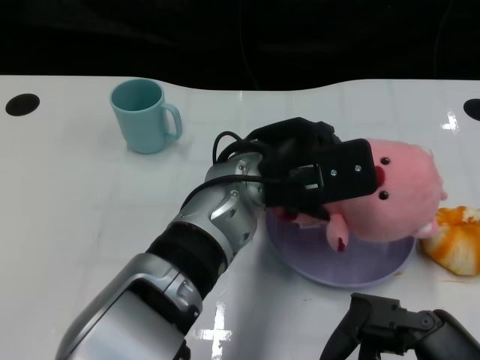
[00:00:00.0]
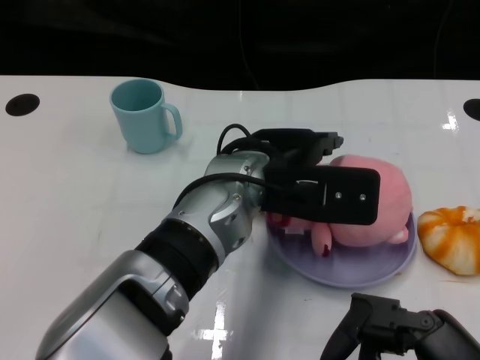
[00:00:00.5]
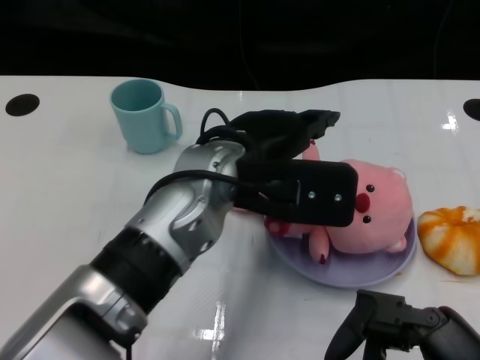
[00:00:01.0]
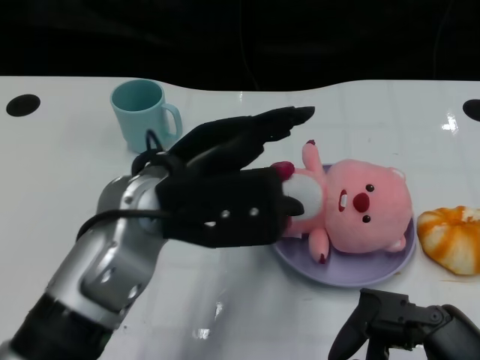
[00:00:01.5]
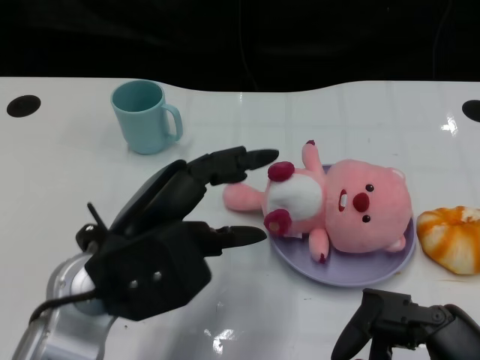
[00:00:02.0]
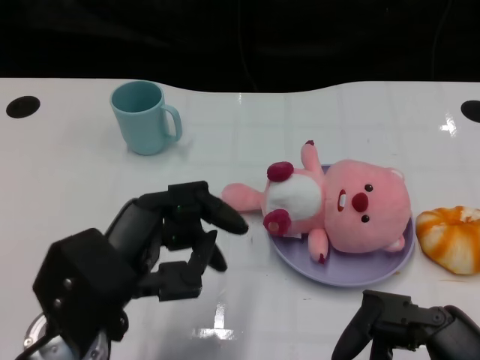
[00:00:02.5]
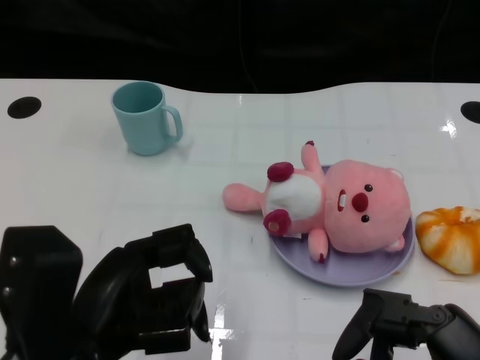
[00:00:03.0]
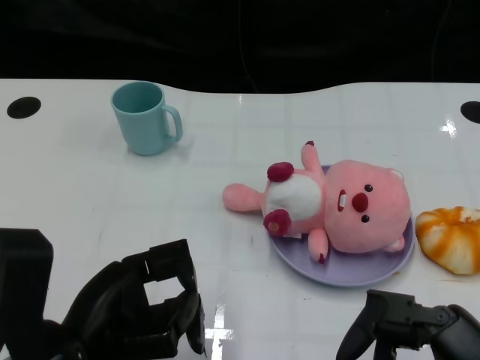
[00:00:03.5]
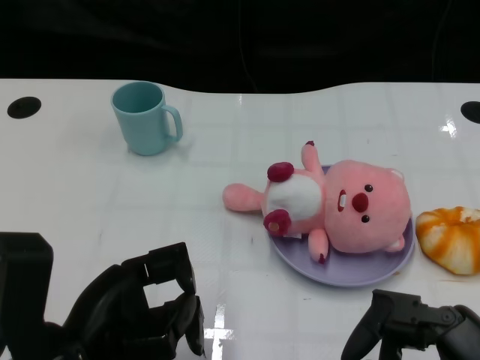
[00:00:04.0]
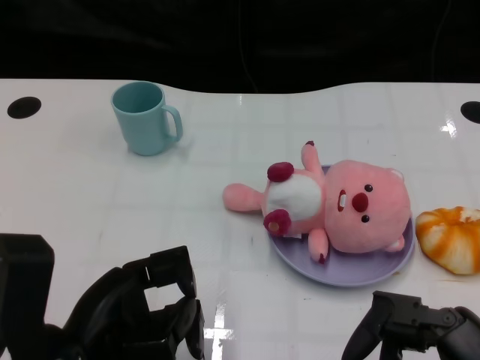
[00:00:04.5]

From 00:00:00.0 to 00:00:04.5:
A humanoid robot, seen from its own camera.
Task of the whole recording: Pick up the doll on one side of the plate and place it into the plate.
From 00:00:00.0 to 00:00:02.0: The left hand is displaced to the left and backward by some 15 cm.
From 00:00:02.0 to 00:00:04.5: The left hand travels backward by about 5 cm.

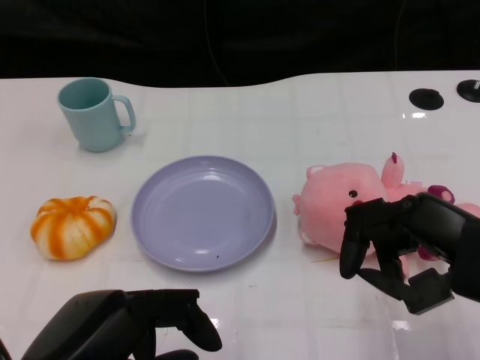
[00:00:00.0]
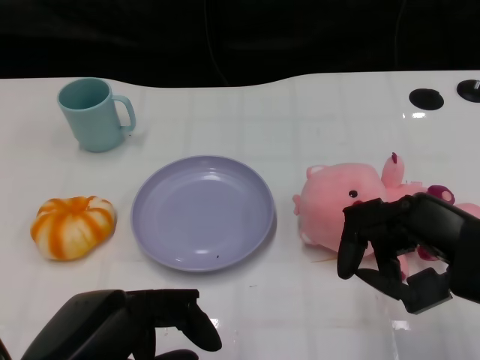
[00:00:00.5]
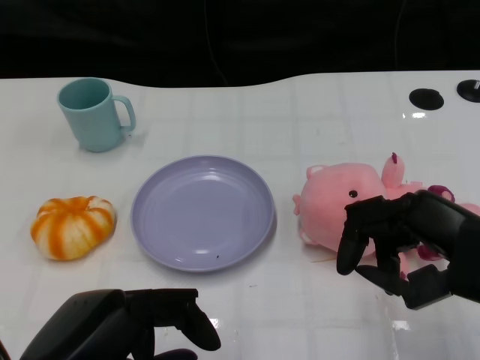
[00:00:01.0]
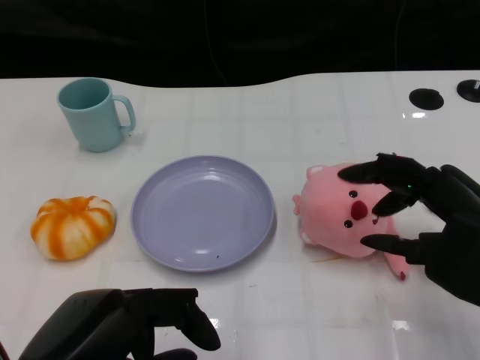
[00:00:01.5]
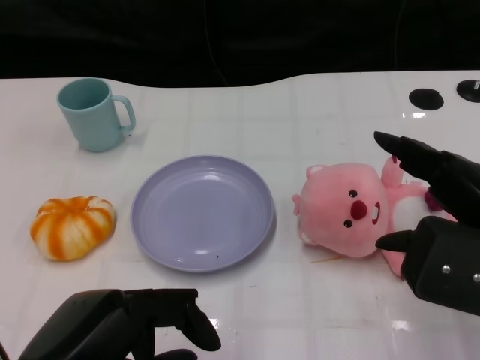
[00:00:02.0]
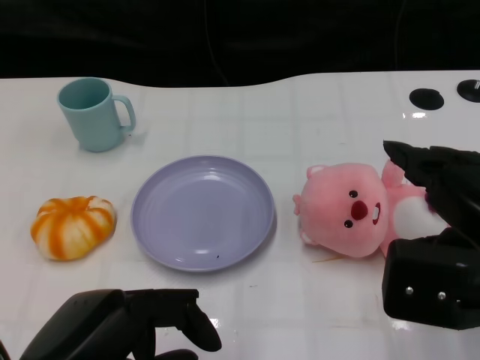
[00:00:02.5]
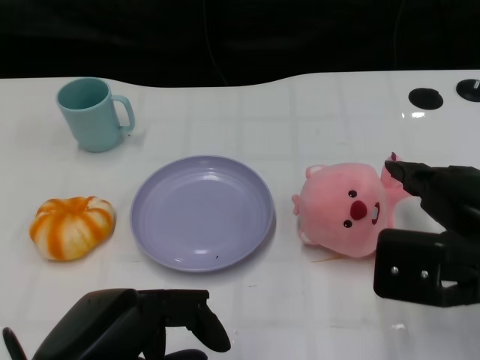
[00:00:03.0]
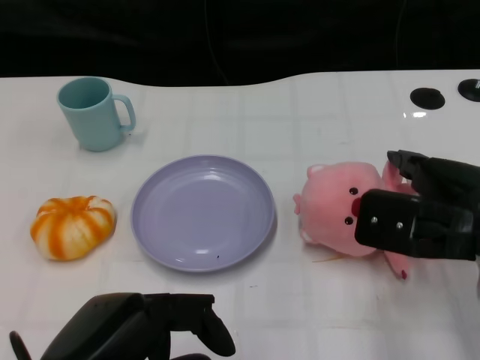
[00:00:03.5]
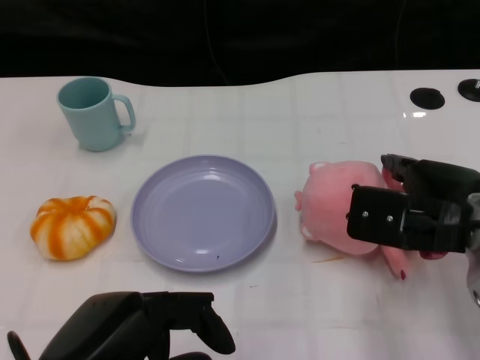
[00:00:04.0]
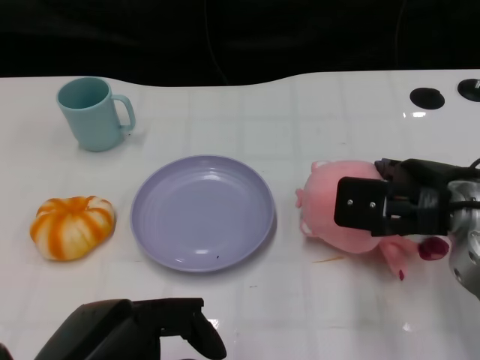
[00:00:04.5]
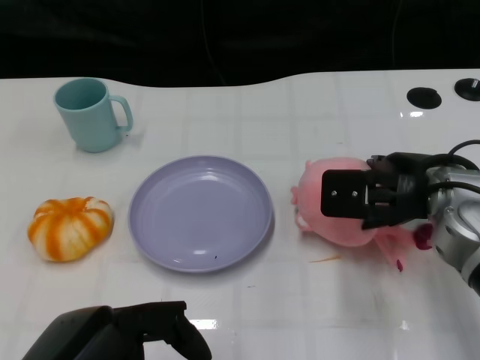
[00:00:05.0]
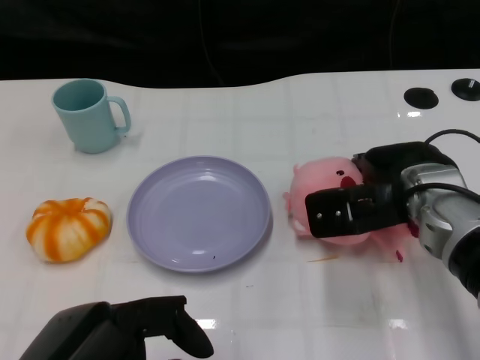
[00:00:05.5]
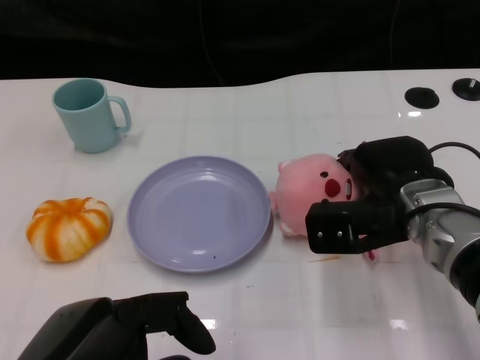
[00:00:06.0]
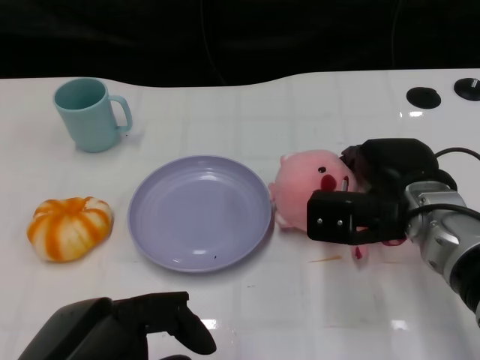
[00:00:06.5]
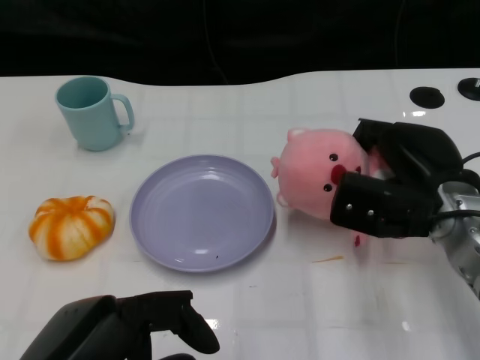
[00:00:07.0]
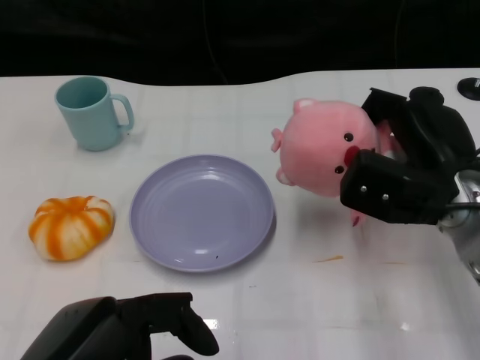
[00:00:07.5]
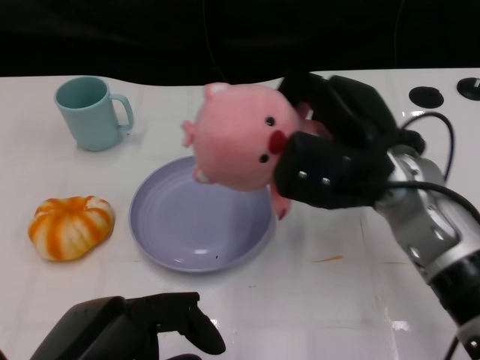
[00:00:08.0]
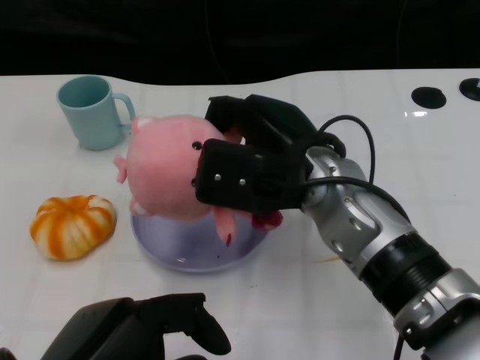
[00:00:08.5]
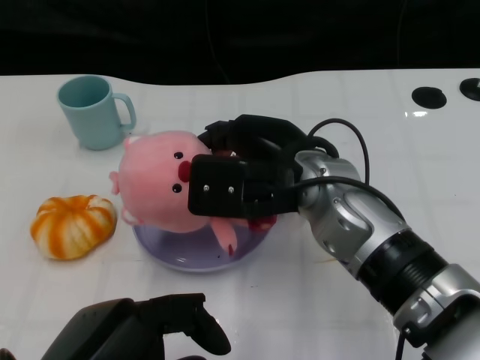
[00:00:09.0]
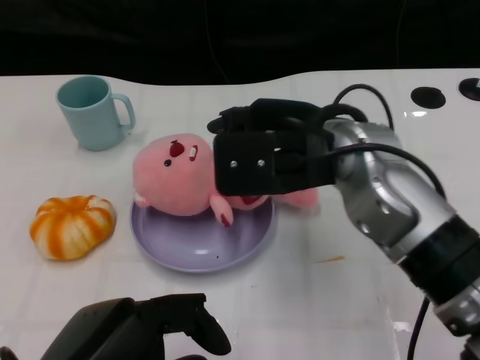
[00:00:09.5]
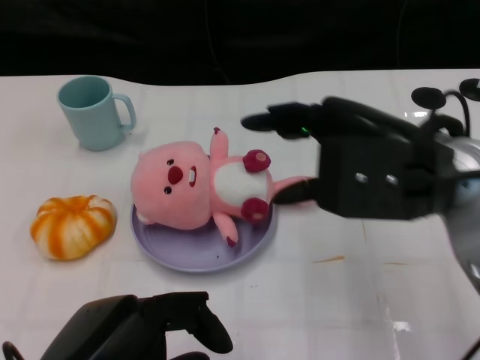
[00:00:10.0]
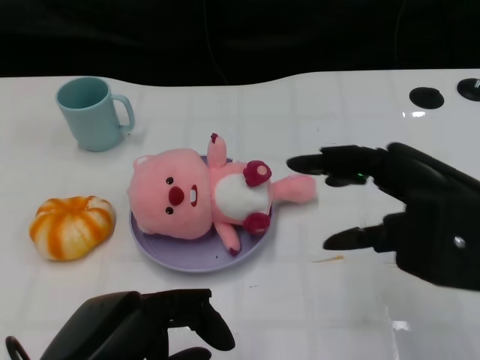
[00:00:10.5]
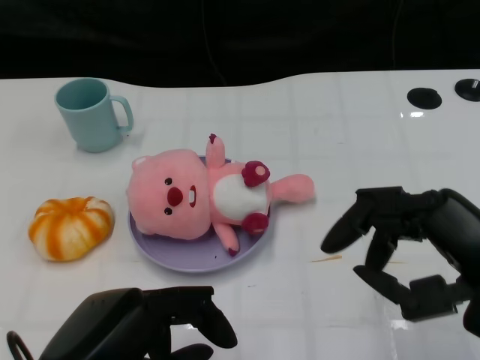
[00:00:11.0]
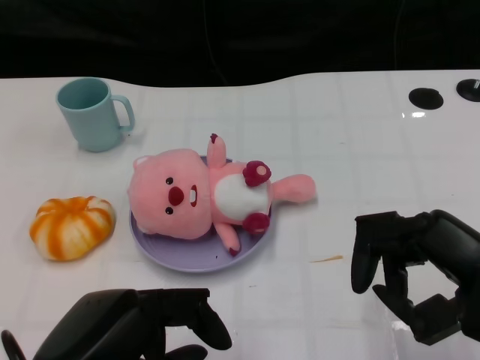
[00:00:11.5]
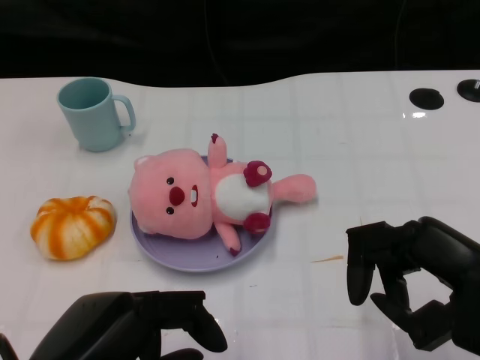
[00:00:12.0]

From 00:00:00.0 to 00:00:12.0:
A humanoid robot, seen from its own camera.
Task of the whole recording: Pick up the doll on the other side of the plate and place it into the plate.
Step, from 00:00:01.5 to 00:00:07.5: Grasp the pink doll with the right gripper.
Step, from 00:00:08.0 to 00:00:10.0: Place the pink doll into the plate with the right gripper.
From 00:00:02.0 to 00:00:04.0: The right hand moves forward, approximately 5 cm.
From 00:00:04.0 to 00:00:06.0: The right hand shifts by approximately 10 cm.
From 00:00:06.0 to 00:00:08.0: The right hand is displaced upward by about 5 cm.
From 00:00:08.0 to 00:00:10.0: The right hand moves upward, about 5 cm, and travels to the left and back again, roughly 10 cm each way.
From 00:00:10.0 to 00:00:12.0: The right hand heads backward, to the right and downward, covering about 15 cm.
